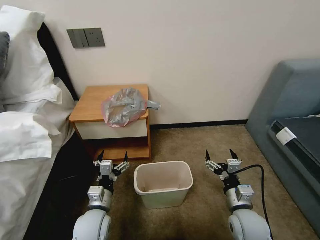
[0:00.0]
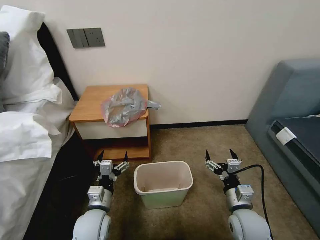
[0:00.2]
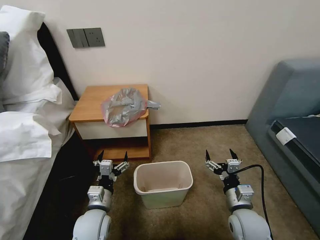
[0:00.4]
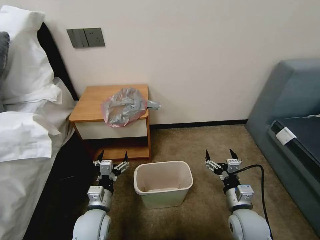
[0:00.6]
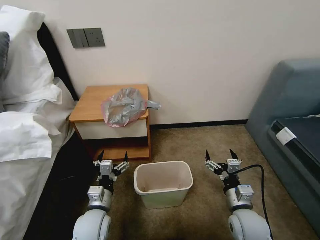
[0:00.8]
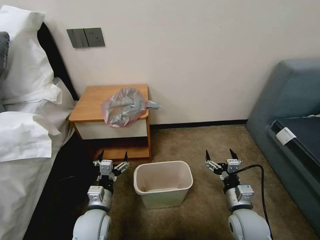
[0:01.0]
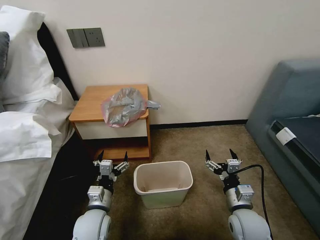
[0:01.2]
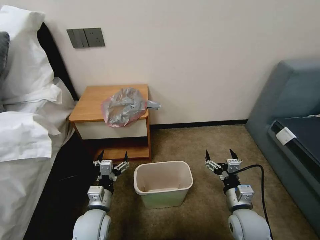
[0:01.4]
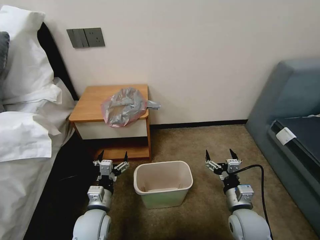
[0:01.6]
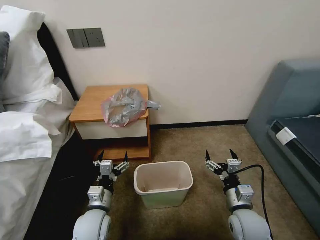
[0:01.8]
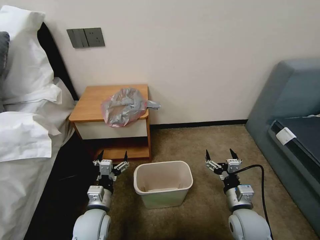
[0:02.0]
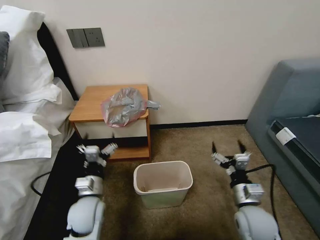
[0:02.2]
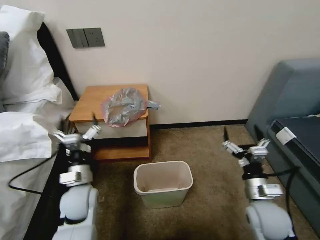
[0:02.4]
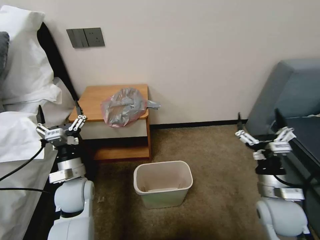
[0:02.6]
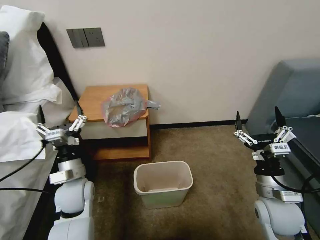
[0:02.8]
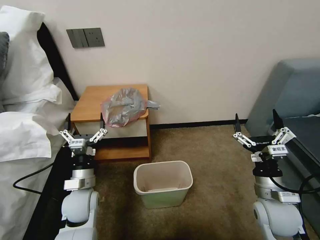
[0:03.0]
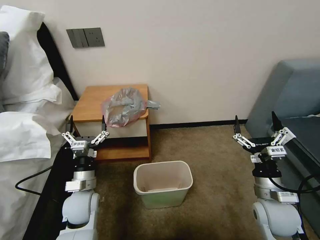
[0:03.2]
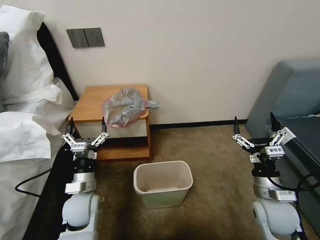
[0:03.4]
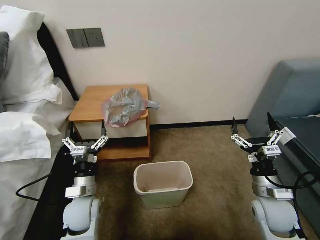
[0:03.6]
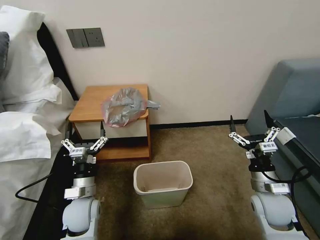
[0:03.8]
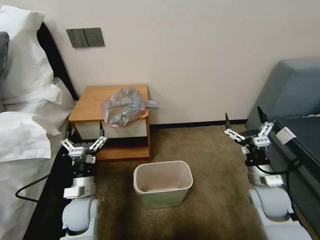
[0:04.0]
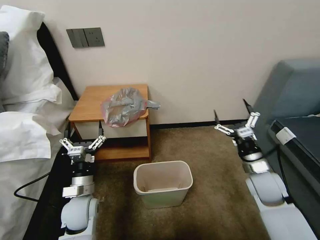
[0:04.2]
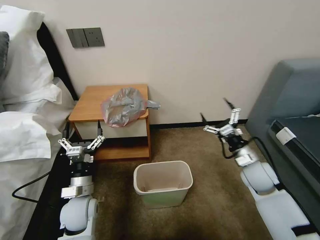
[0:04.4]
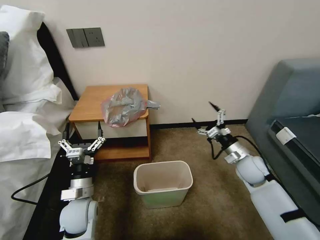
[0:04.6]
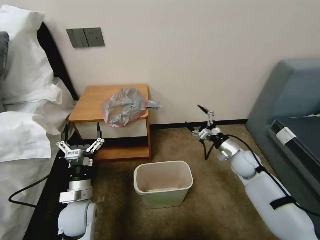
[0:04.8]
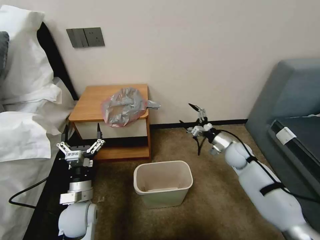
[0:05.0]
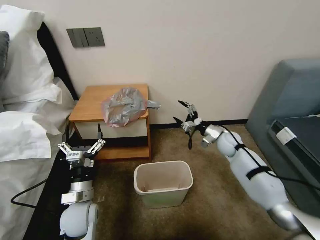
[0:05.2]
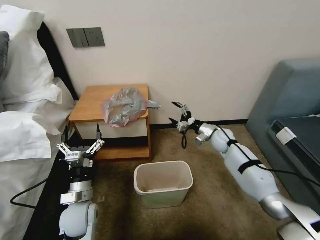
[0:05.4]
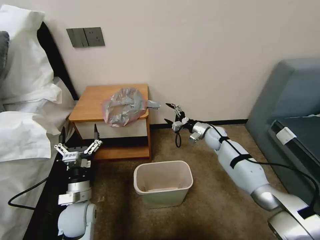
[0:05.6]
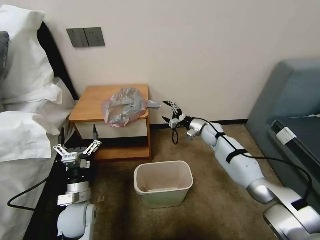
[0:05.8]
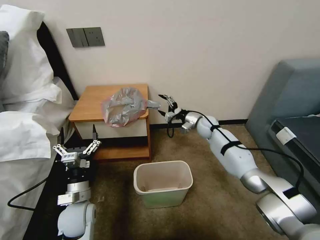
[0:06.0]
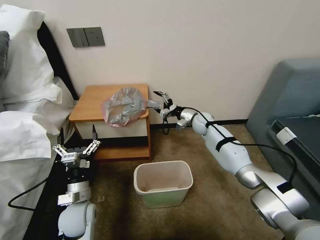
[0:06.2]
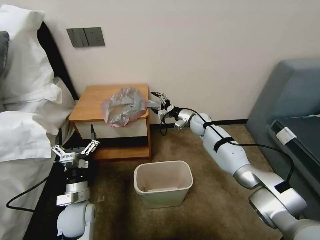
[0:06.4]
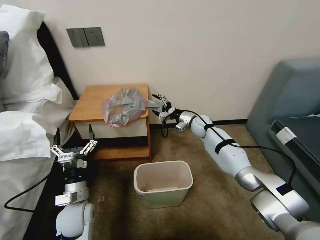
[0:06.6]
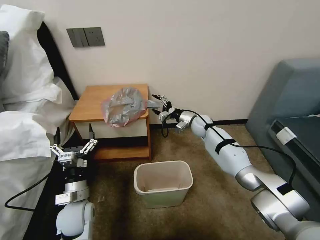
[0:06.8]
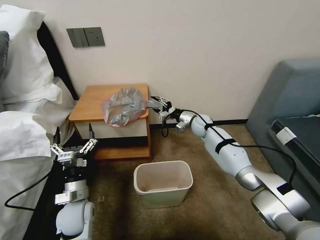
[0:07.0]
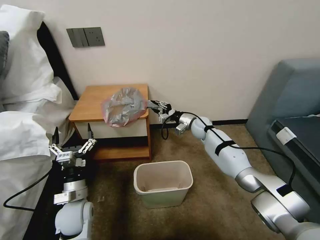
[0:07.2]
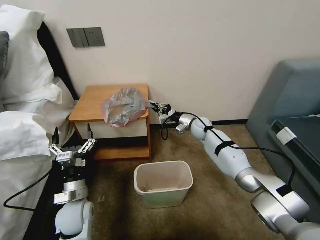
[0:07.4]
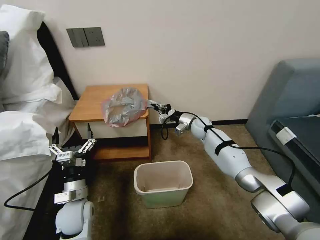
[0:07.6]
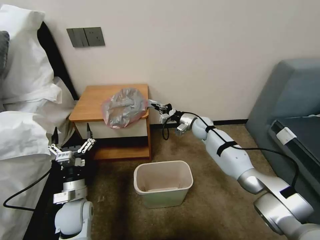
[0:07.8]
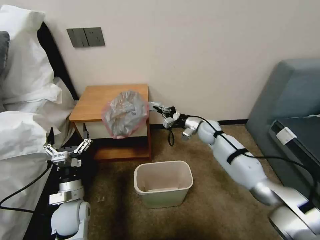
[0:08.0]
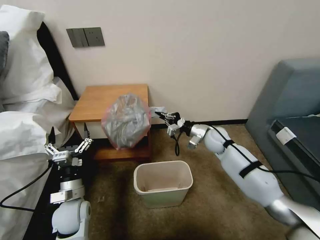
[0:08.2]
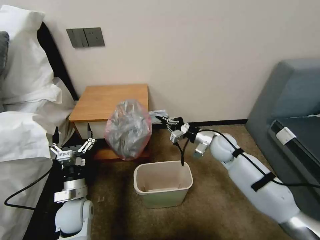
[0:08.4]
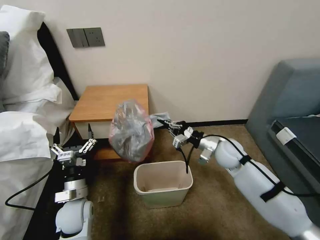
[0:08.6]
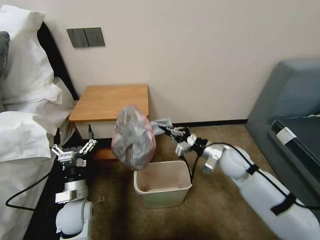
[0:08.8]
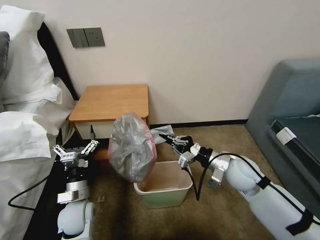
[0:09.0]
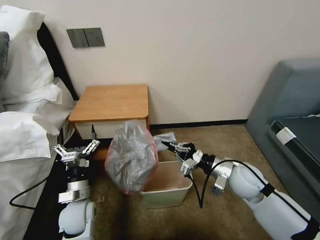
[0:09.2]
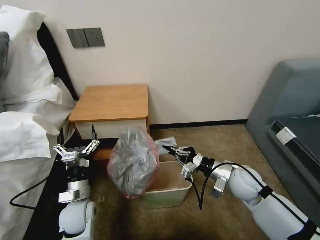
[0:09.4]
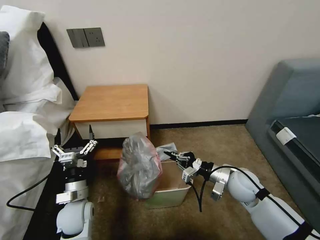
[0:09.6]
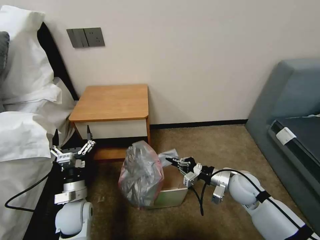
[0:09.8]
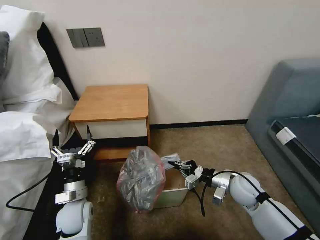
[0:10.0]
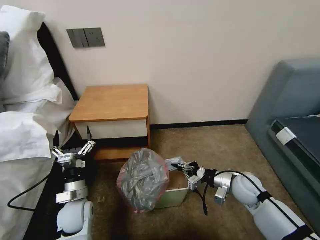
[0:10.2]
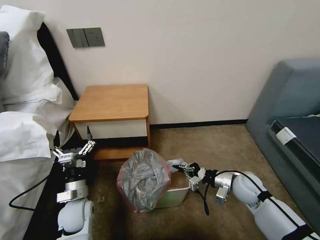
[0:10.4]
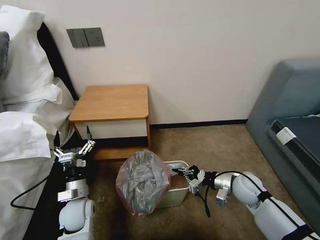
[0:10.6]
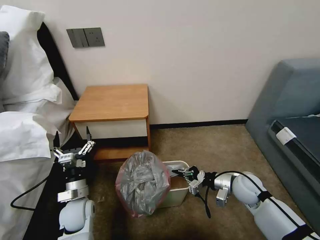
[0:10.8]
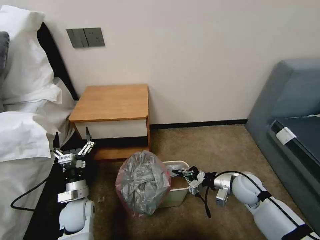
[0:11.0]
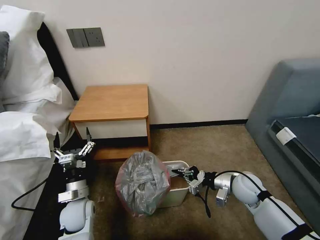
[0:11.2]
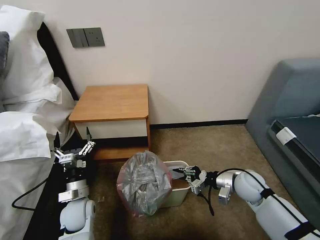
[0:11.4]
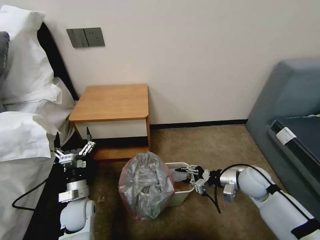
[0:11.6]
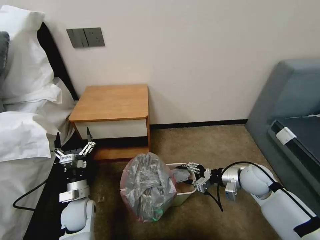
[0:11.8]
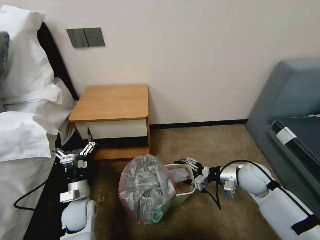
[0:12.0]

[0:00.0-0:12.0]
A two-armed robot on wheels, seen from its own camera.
Task of the whole recording: Pick up the garbage bag from the table and place it over the trash can.
0:01.6 to 0:03.0: The right gripper travels upward and to the right by roughly 10 cm. The left gripper goes roughly 5 cm forward.
0:03.0 to 0:04.4: The right gripper moves forward, about 10 cm.
0:04.4 to 0:06.0: The right gripper goes approximately 25 cm forward and to the left.
0:06.0 to 0:07.6: The right gripper closes.
0:07.6 to 0:09.0: The right gripper travels backward by approximately 25 cm.
0:09.0 to 0:10.4: The right gripper heads downward and to the right, covering some 10 cm.
0:10.4 to 0:12.0: The right gripper opens.

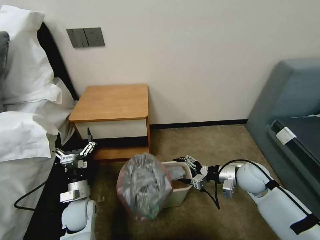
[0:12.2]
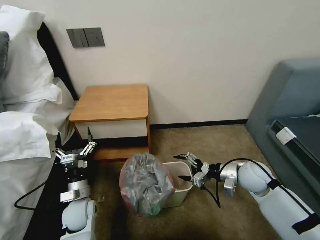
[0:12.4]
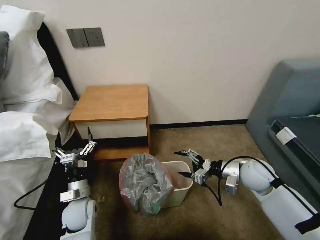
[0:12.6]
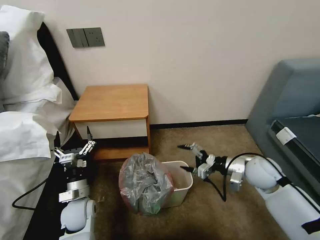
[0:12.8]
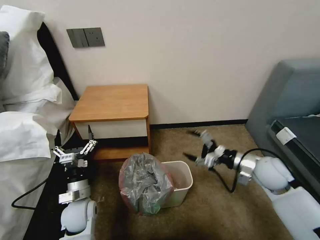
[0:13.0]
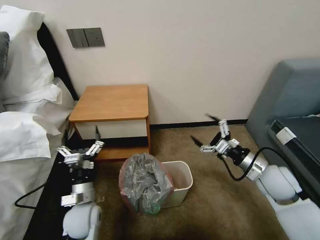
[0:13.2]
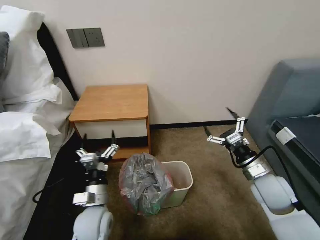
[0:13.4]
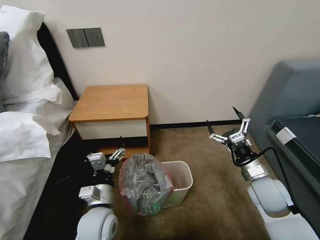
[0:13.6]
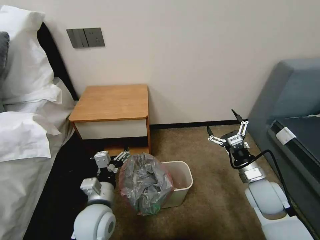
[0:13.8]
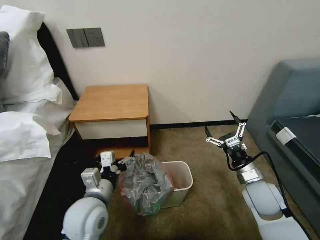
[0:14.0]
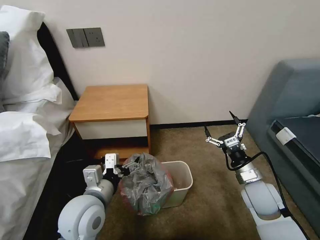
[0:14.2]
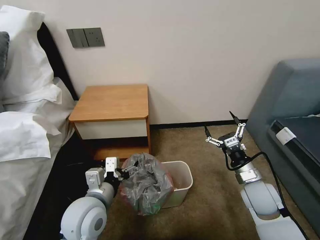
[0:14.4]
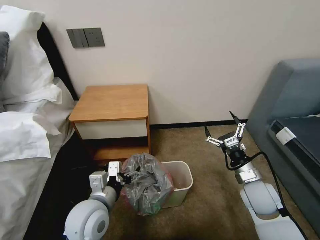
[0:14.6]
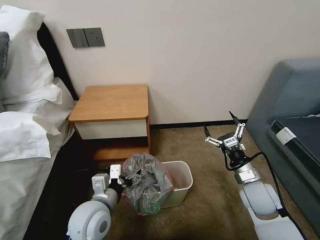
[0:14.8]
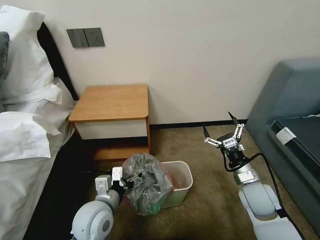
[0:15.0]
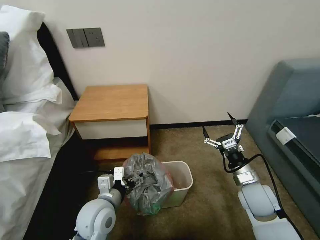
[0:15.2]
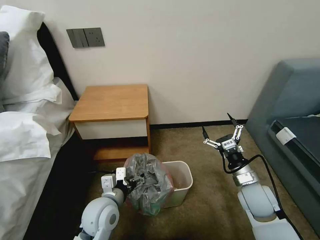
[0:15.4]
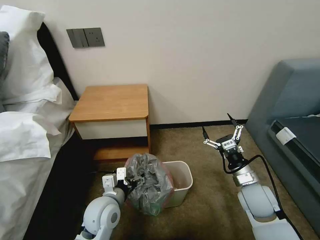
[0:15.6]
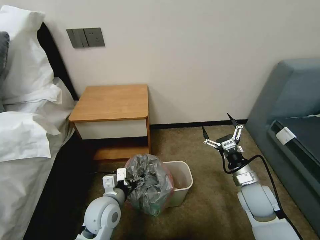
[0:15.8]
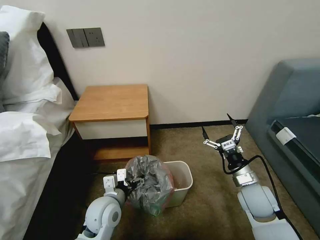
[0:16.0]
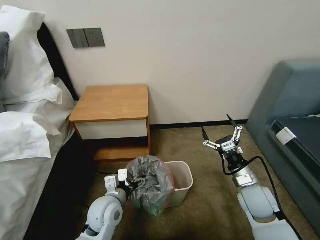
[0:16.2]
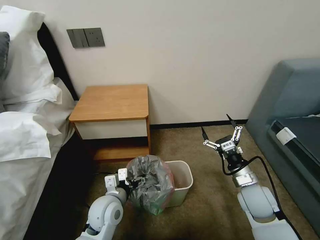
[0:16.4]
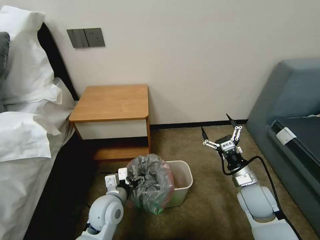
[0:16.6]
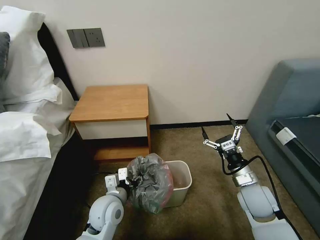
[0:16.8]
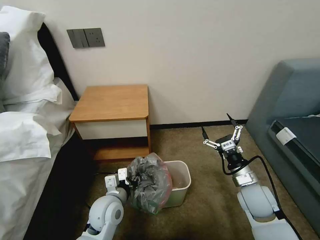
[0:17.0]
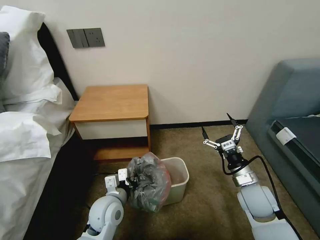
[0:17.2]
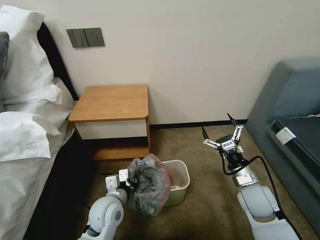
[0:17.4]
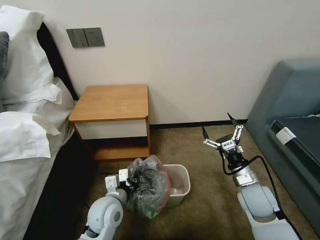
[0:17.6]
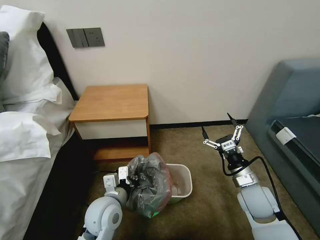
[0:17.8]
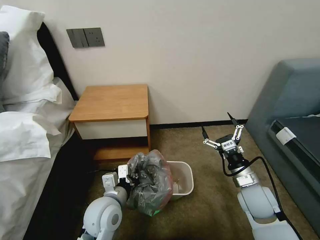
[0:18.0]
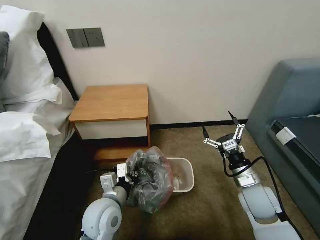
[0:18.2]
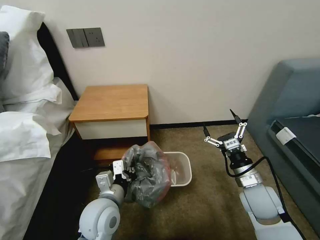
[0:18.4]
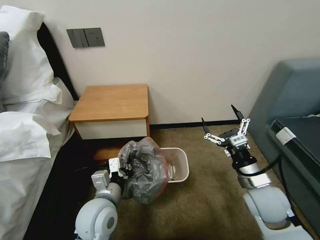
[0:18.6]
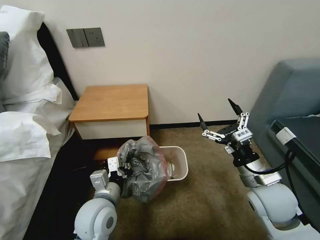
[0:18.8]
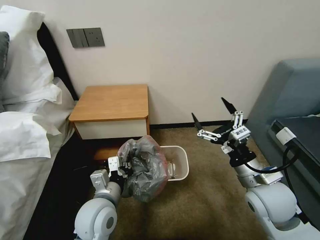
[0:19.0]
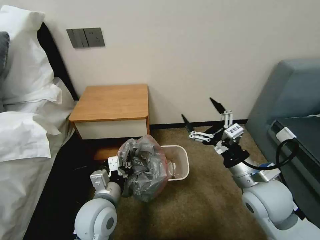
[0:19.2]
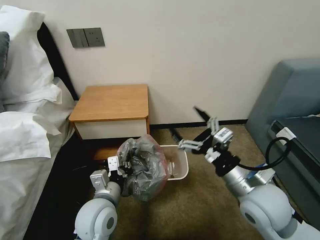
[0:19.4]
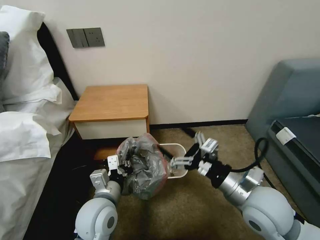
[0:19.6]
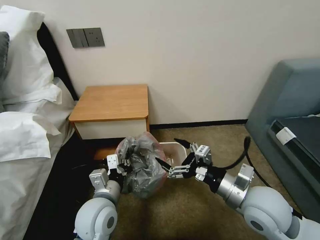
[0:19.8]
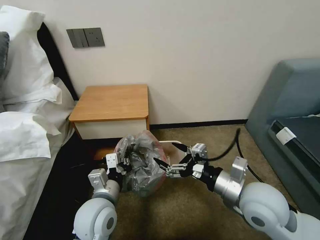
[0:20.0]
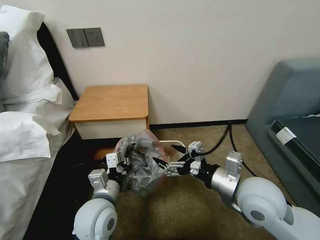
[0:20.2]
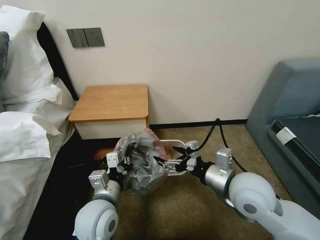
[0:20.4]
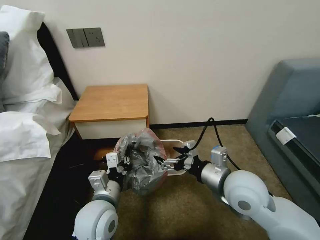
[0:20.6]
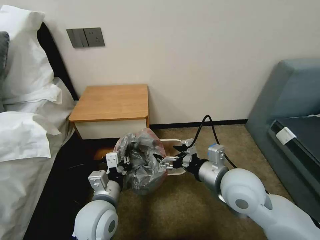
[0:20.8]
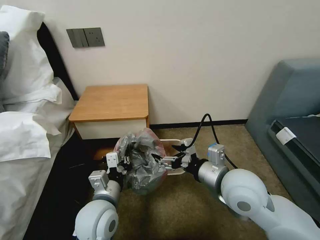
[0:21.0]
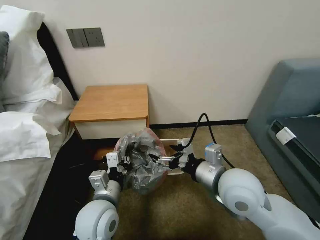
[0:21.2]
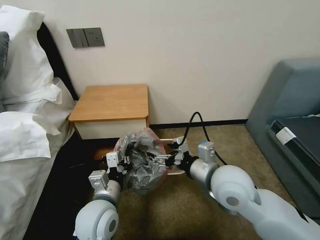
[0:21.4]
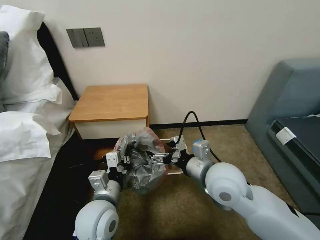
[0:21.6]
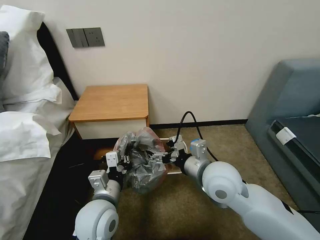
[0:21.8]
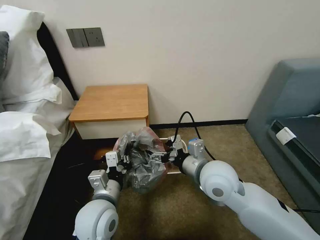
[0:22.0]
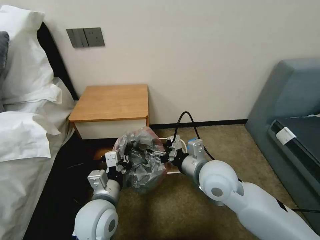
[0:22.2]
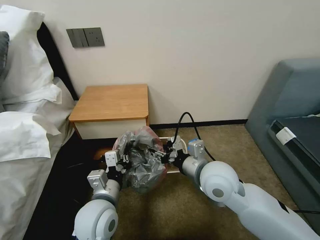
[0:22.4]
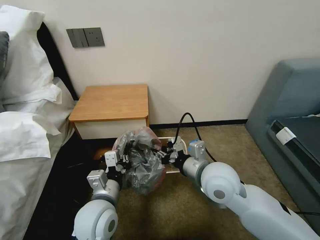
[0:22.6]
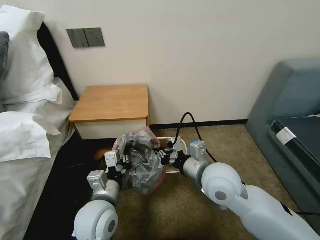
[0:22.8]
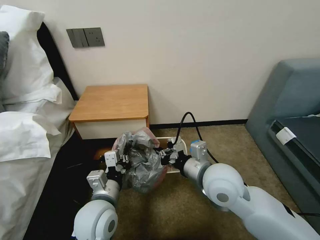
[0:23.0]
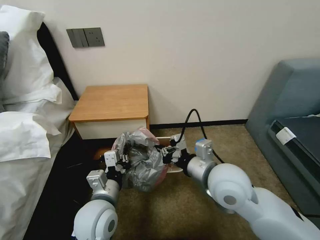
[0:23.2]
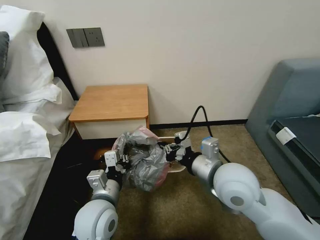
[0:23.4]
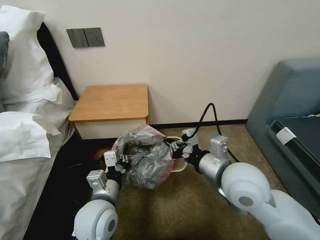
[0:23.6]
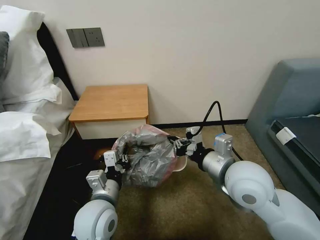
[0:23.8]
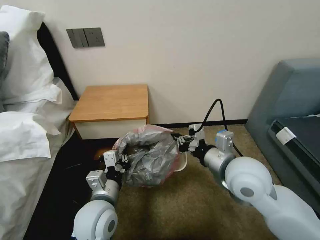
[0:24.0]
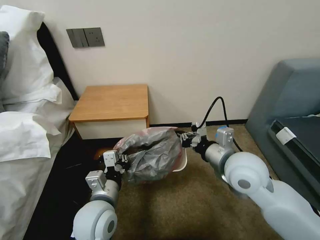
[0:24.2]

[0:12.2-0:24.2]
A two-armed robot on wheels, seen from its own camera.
Task of the whole recording: Pick up the garbage bag from the table and place it over the trash can.
0:12.2 to 0:13.8: The right gripper travels backward by roughly 5 cm; the left gripper is displaced to the right and upward by roughly 15 cm.
0:15.2 to 0:16.6: The left gripper ends up roughly 5 cm from where it was.
0:16.6 to 0:18.2: The left gripper moves upward, about 5 cm, and closes its fingers.
0:18.2 to 0:19.8: The right gripper travels upward, to the left and backward by about 10 cm.
0:19.8 to 0:21.2: The right gripper goes about 5 cm to the left.
0:21.2 to 0:22.6: The right gripper closes.
0:22.6 to 0:24.2: The right gripper shifts about 5 cm to the right.
